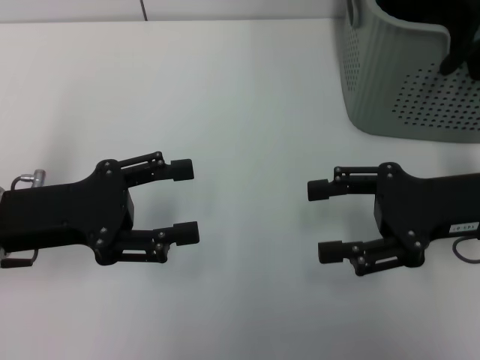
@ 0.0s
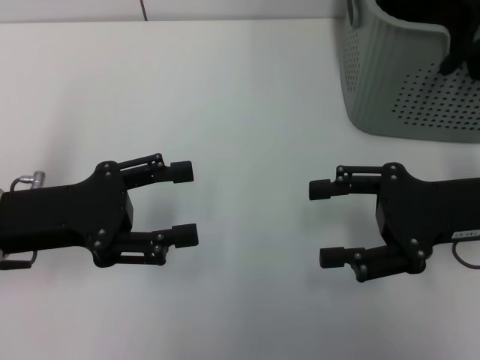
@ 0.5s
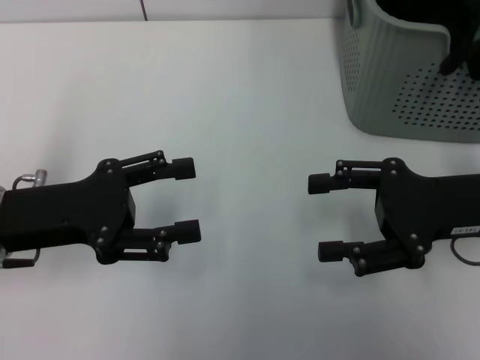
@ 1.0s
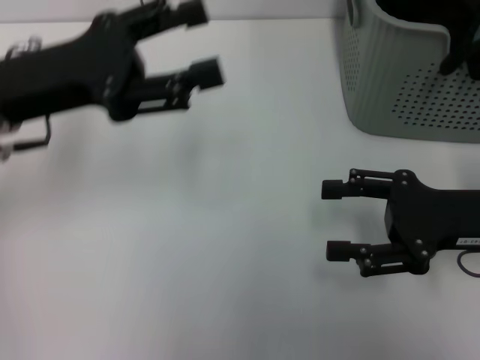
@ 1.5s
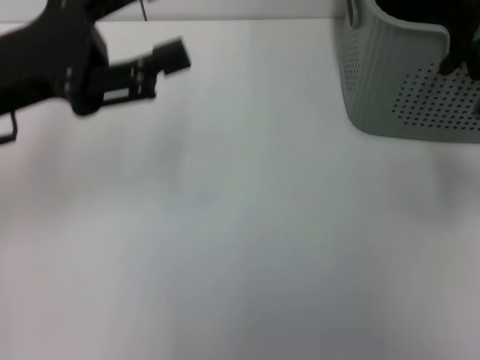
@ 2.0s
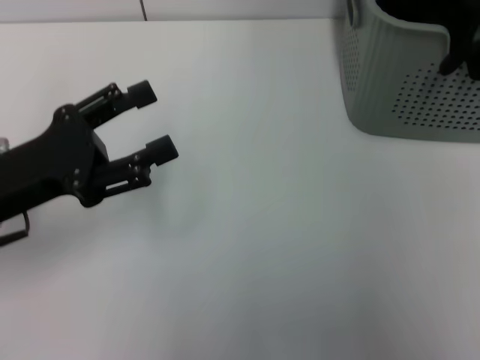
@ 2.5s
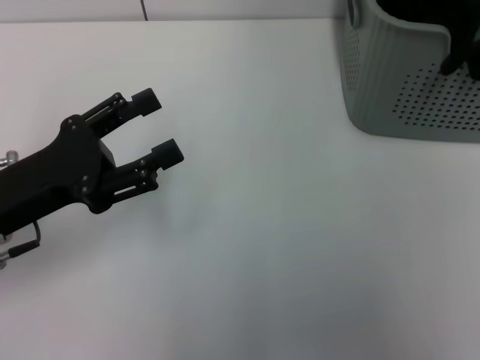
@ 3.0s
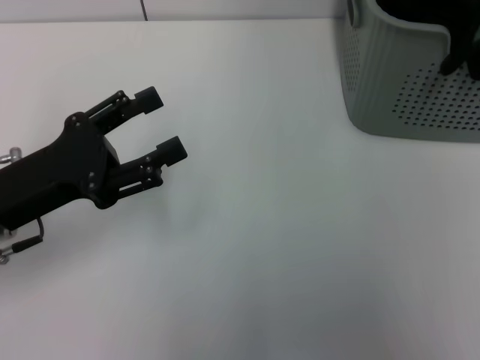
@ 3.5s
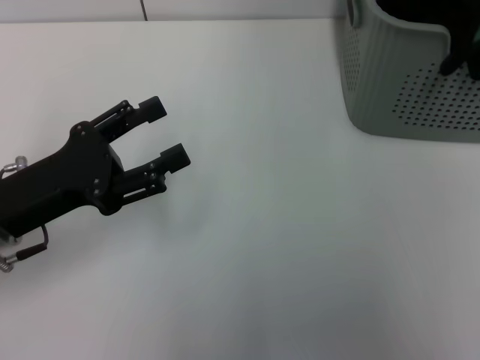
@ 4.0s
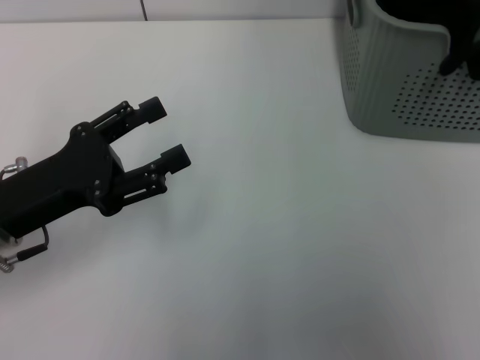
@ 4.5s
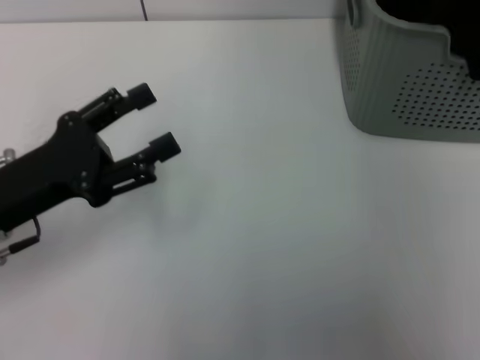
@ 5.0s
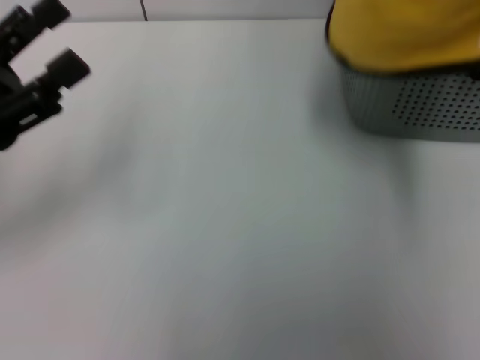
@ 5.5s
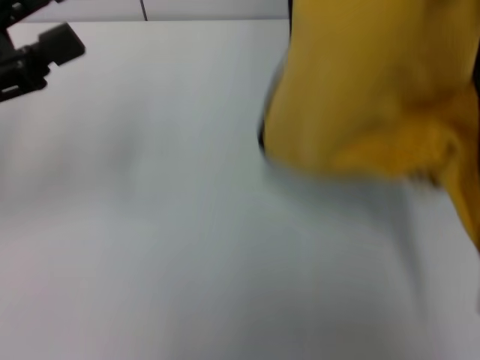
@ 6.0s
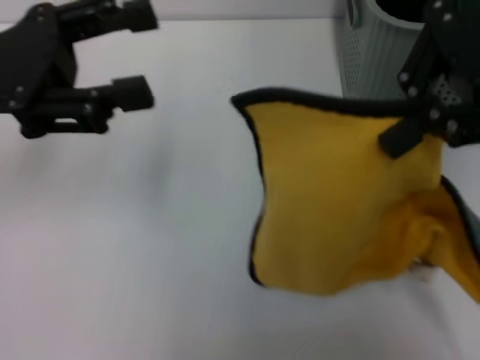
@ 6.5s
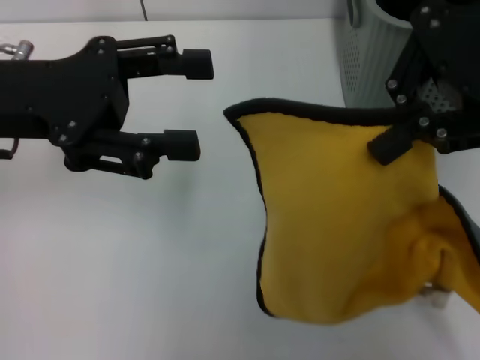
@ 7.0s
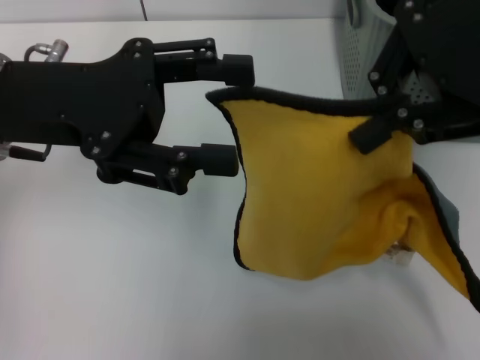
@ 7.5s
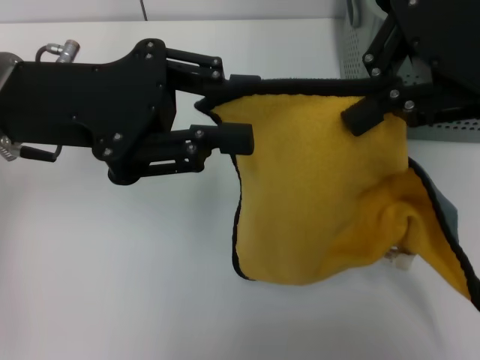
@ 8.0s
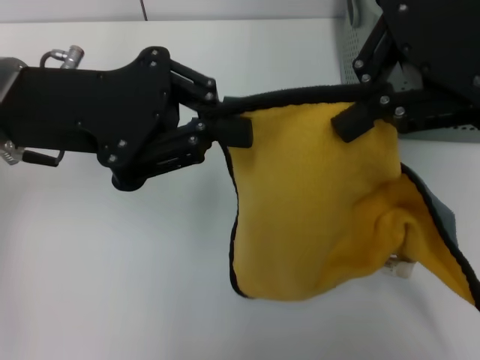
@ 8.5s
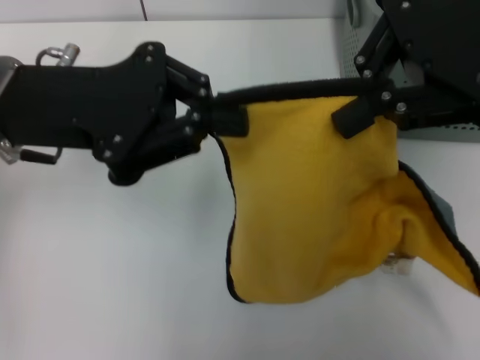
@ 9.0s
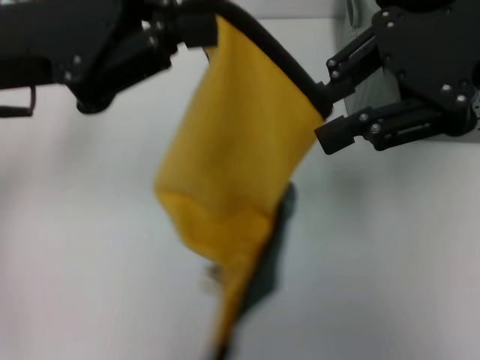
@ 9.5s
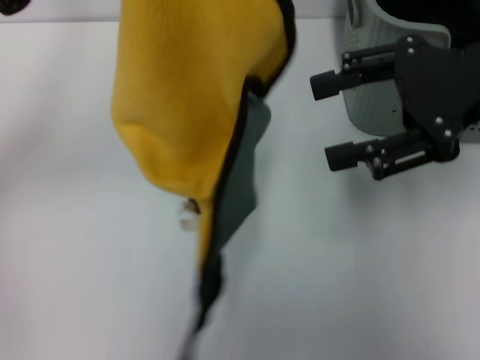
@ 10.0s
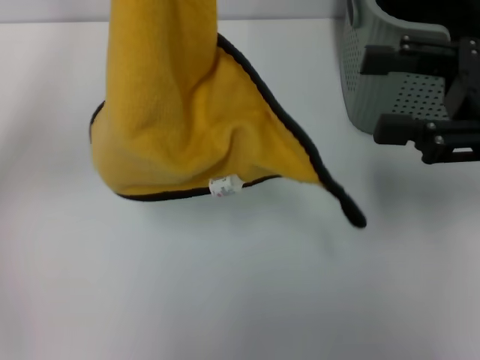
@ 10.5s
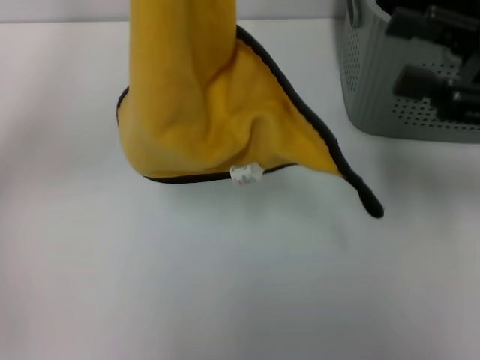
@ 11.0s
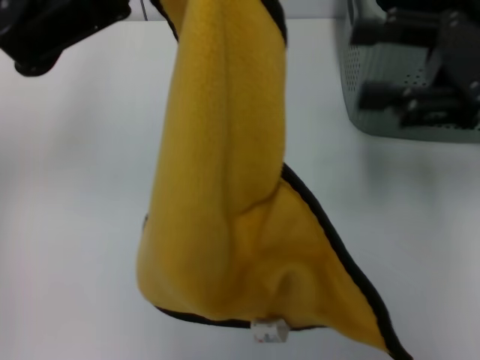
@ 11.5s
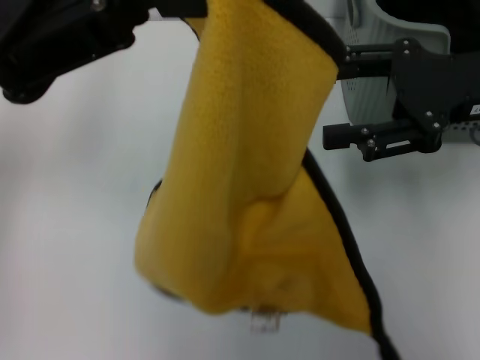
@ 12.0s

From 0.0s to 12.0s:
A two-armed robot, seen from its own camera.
Task of the whole recording: pick up the towel from the storage box and lay it flat on the table.
Step, from 0.0s to 4.5s: Pick up a towel with the right gripper.
Step, from 5.0s to 8.5s: Spread the towel flat with the right gripper.
From 0.0s to 2.0s: The left gripper shifts approximately 10 cm upward; the right gripper moves to the right and upward, about 10 cm.
From 2.0s to 4.0s: The left gripper travels downward and backward by some 10 cm; the right gripper goes approximately 25 cm forward and upward.
From 4.0s to 6.0s: The left gripper moves upward and to the left, some 10 cm, while the right gripper heads backward, covering about 10 cm, and closes.
From 6.0s to 8.0s: The left gripper travels to the right by roughly 10 cm. Meanwhile the right gripper is displaced to the left by some 5 cm.
From 8.0s to 10.0s: The right gripper shifts some 10 cm downward, and opens up. Meanwhile the left gripper moves some 5 cm, and closes up.
From 10.0s to 12.0s: The left gripper shifts by some 5 cm.

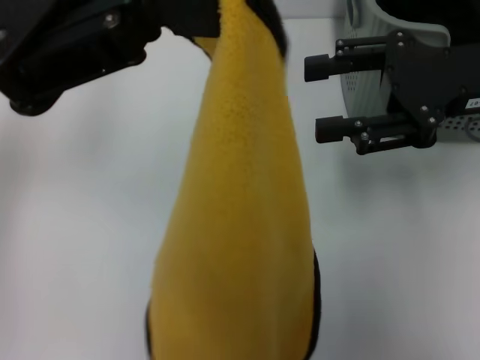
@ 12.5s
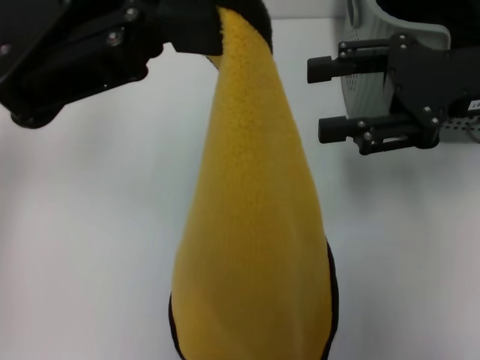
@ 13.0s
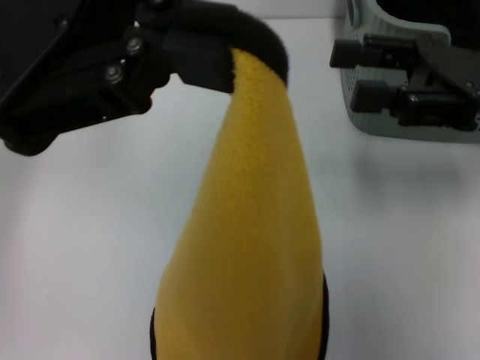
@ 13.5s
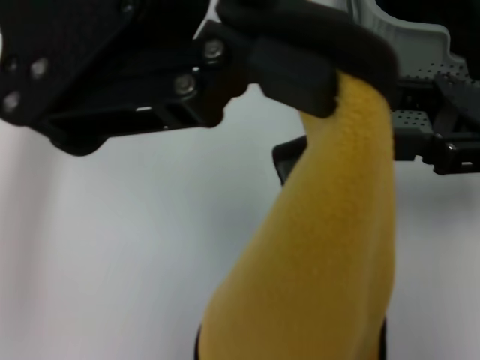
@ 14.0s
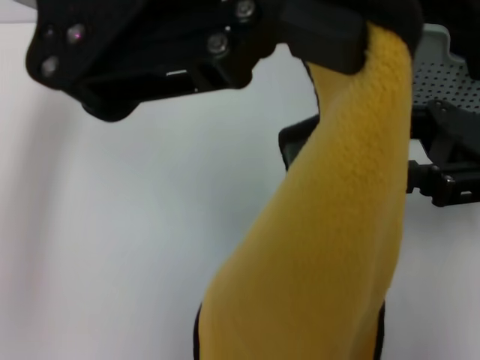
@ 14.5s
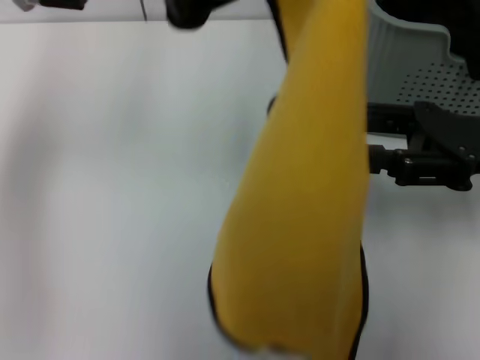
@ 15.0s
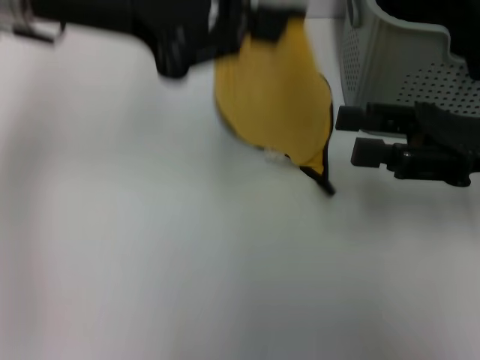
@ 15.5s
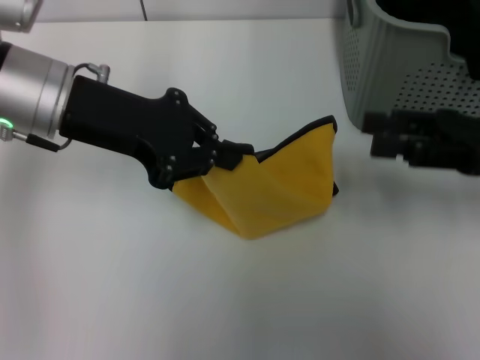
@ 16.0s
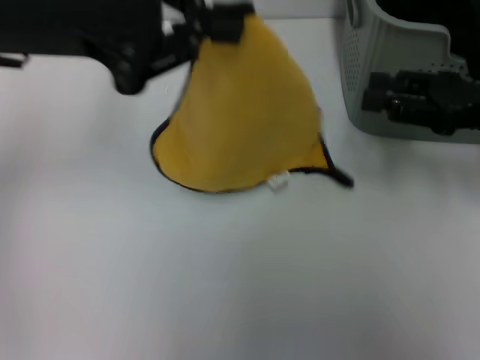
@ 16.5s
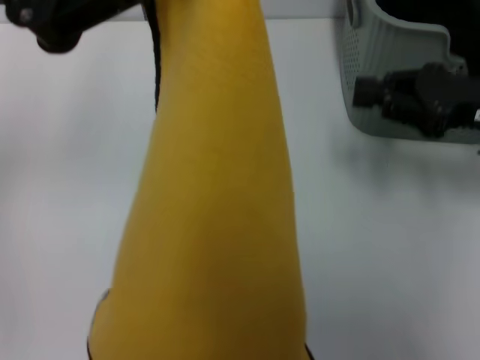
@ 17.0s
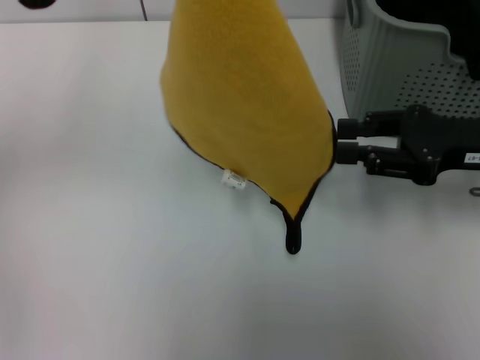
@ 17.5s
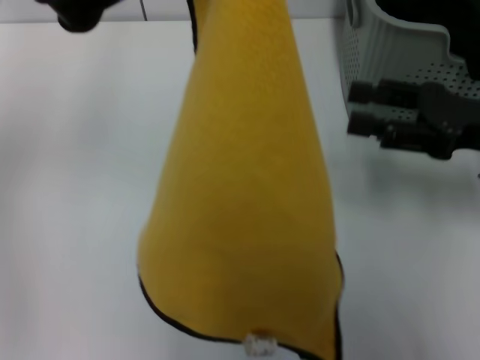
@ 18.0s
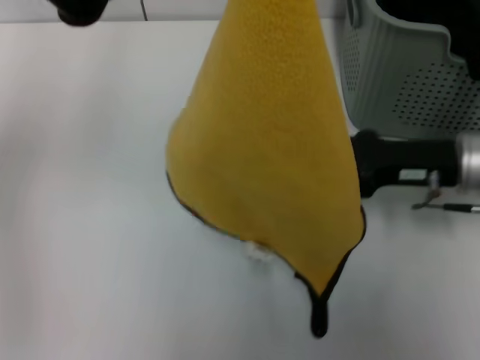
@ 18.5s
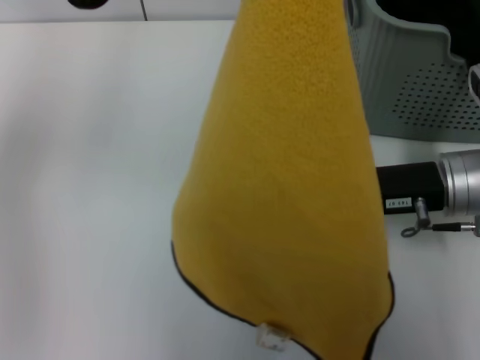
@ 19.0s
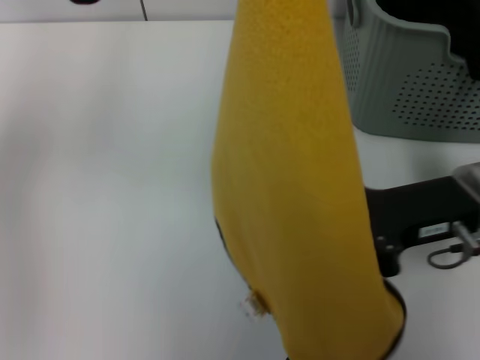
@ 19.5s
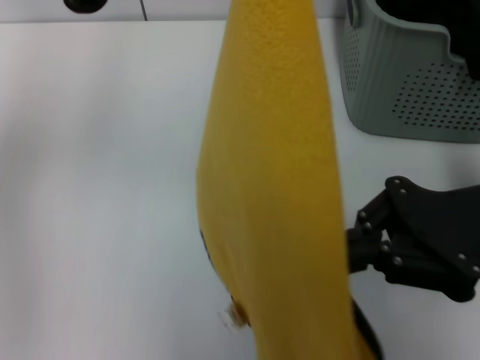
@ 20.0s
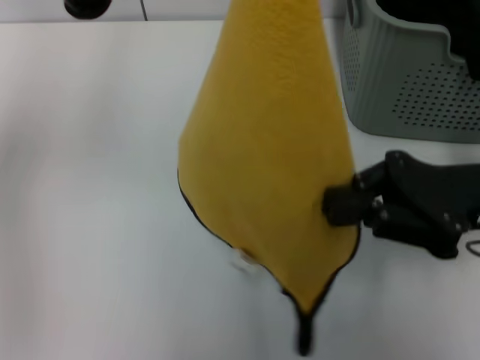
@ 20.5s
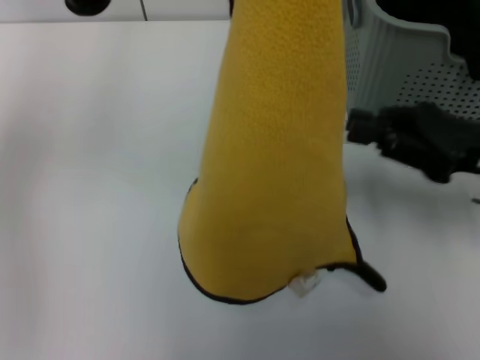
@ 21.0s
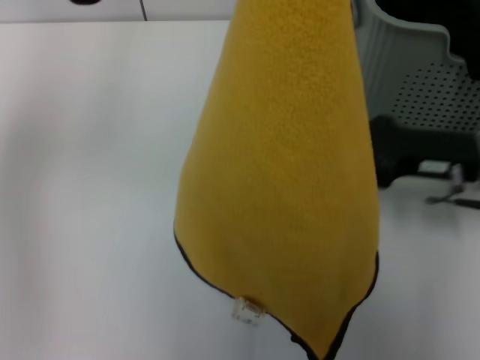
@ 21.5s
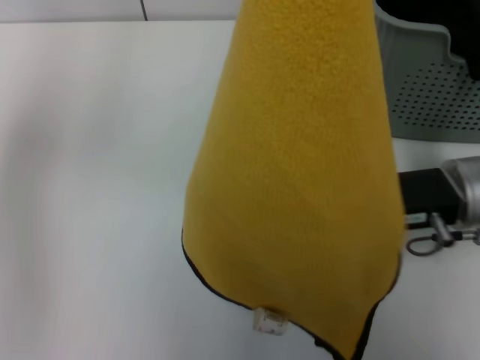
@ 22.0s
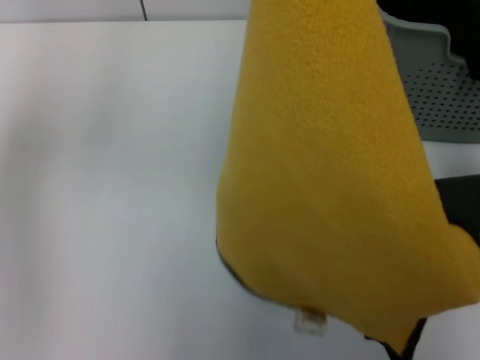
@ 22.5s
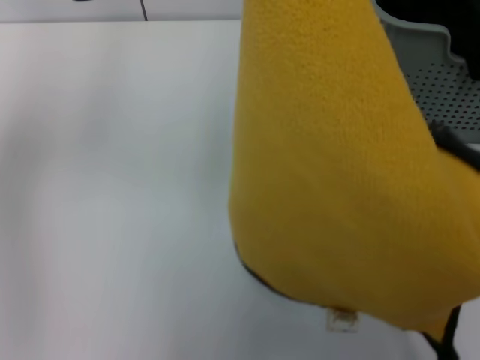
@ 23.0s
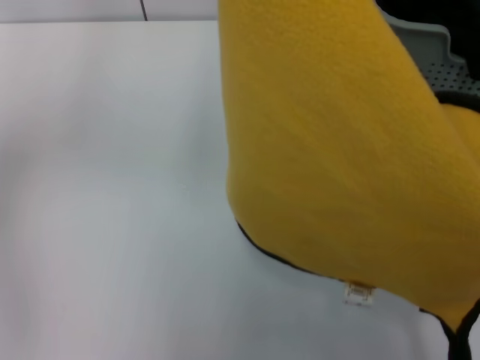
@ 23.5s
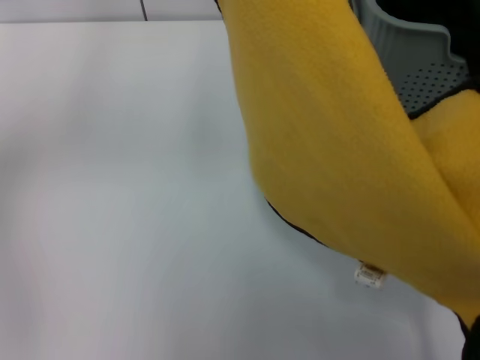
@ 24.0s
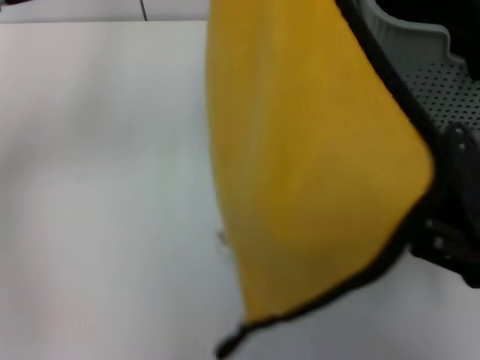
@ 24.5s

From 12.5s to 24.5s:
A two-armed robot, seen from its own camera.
Task of the whole recording: pick up the towel from the storage box and lay it flat on the table.
From 12.5s to 14.5s: The right gripper moves some 5 cm. Meanwhile the left gripper moves to the right, approximately 5 cm.
From 14.5s to 16.5s: The right gripper moves roughly 5 cm, while the left gripper moves downward and to the left, roughly 10 cm.
From 16.5s to 18.5s: The right gripper shifts roughly 5 cm to the left.
From 18.5s to 20.5s: The right gripper shifts by roughly 5 cm, and closes.
From 22.5s to 24.5s: The left gripper shifts by roughly 5 cm.

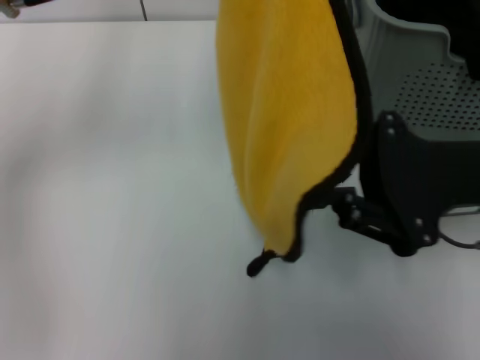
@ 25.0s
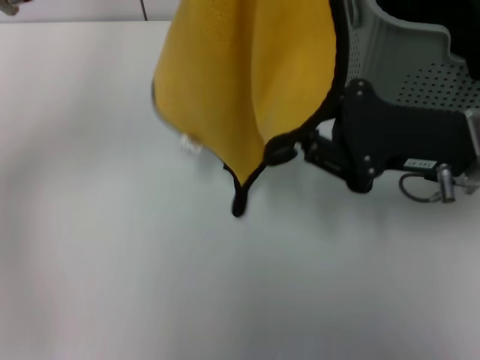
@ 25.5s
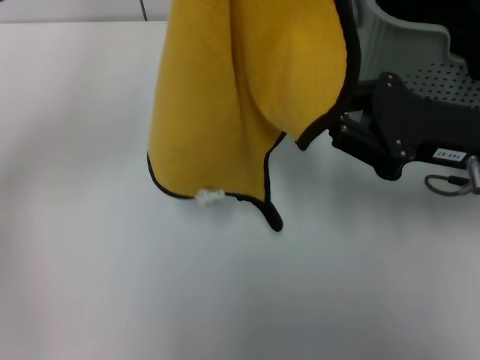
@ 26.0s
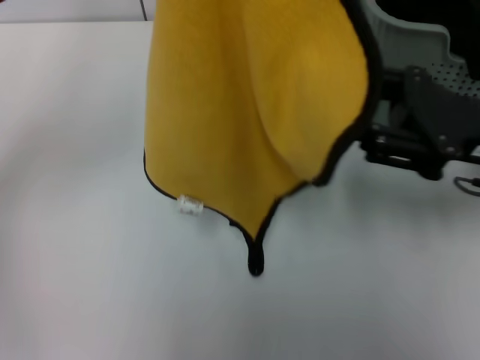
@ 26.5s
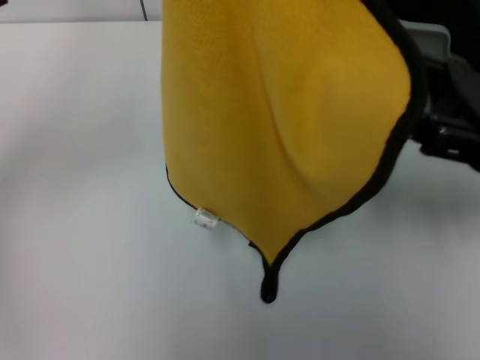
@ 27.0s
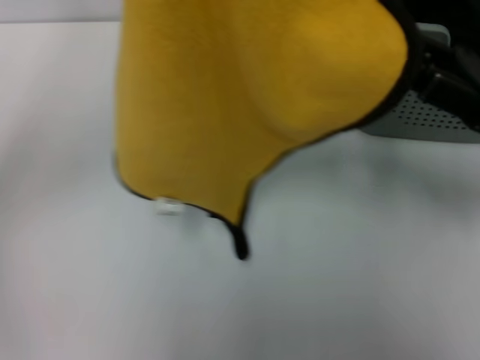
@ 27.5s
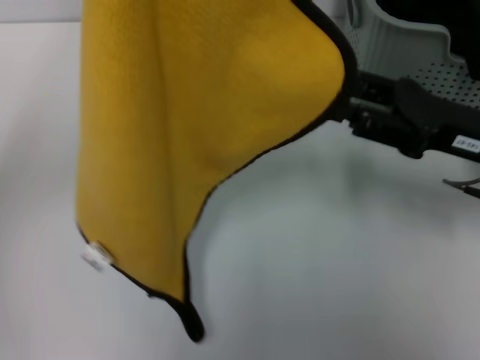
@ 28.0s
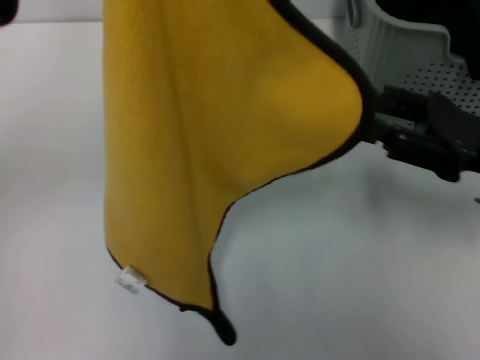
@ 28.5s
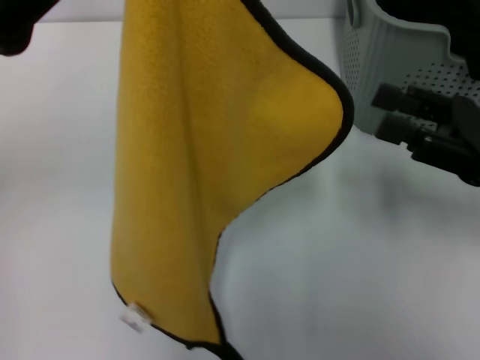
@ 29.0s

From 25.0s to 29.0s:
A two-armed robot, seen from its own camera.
Task of the whole recording: pick up the towel from the storage box and lay it flat on the table.
From 25.0s to 27.0s: The right gripper opens.
